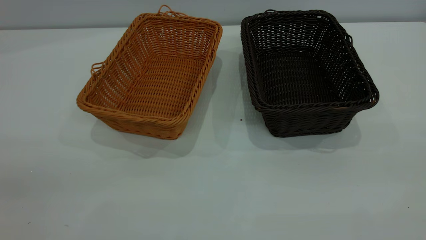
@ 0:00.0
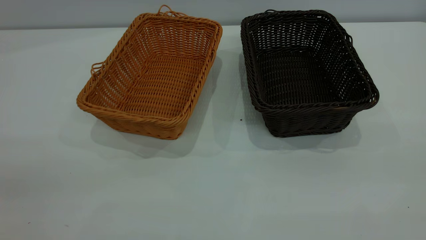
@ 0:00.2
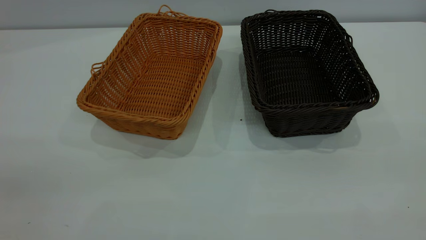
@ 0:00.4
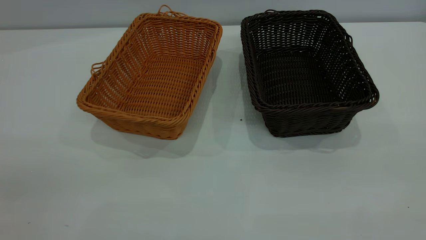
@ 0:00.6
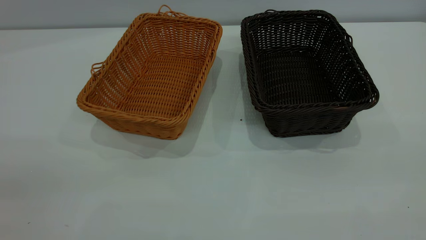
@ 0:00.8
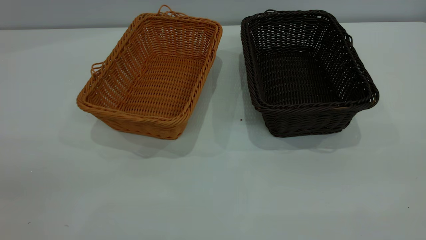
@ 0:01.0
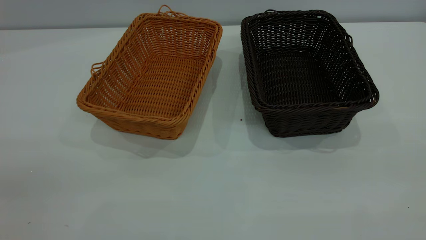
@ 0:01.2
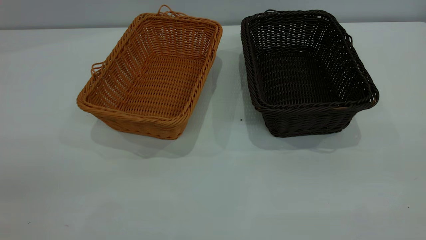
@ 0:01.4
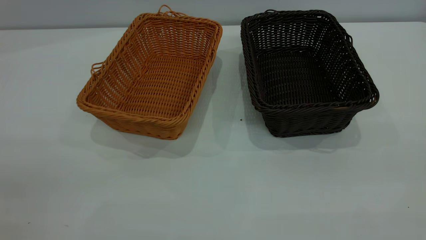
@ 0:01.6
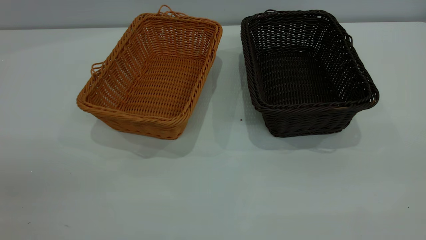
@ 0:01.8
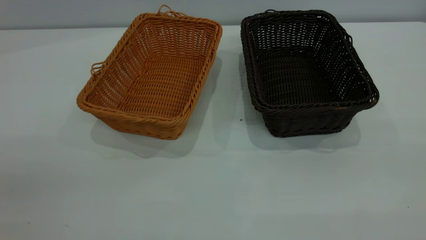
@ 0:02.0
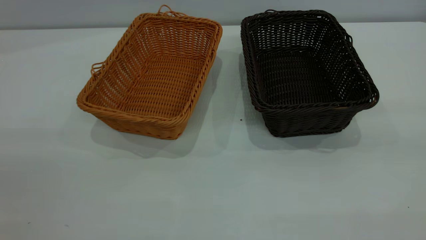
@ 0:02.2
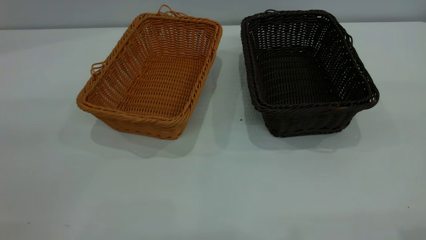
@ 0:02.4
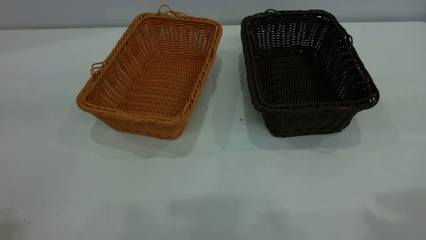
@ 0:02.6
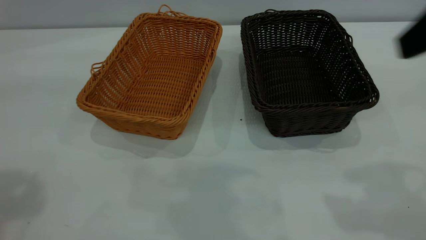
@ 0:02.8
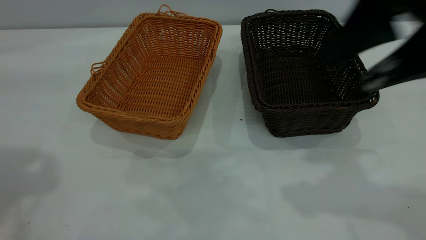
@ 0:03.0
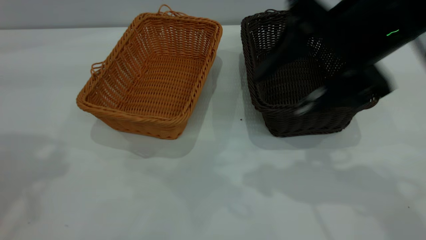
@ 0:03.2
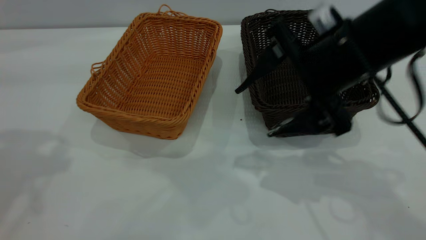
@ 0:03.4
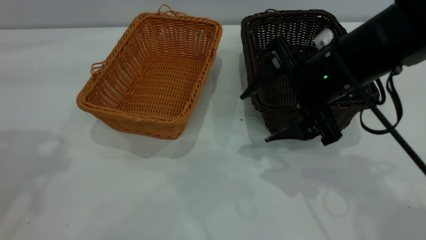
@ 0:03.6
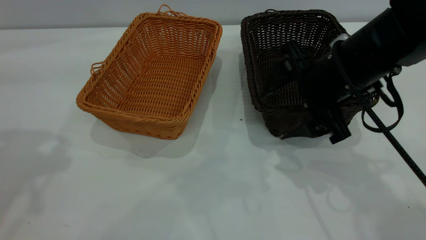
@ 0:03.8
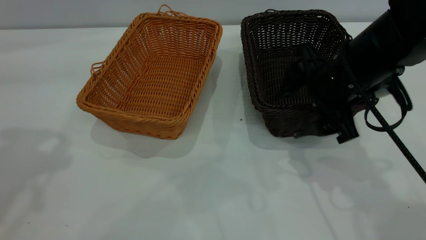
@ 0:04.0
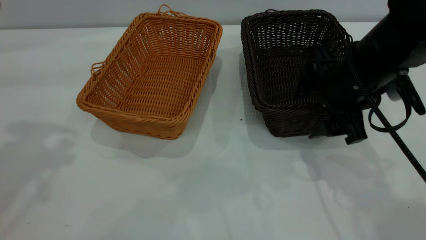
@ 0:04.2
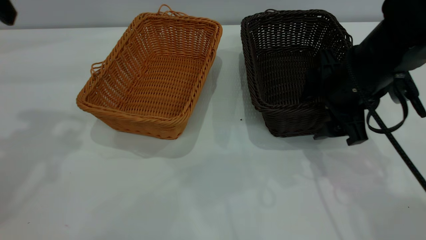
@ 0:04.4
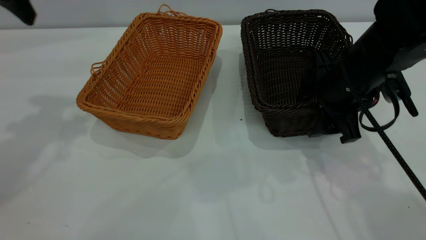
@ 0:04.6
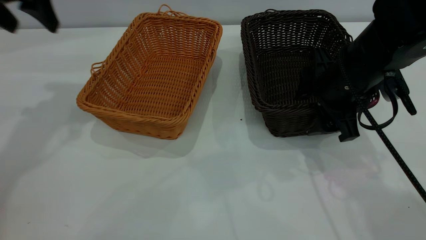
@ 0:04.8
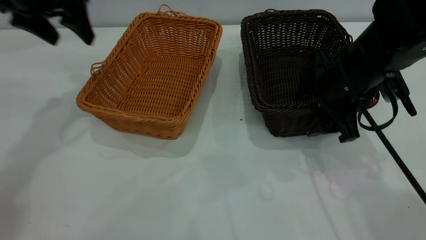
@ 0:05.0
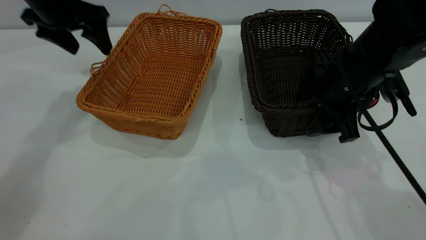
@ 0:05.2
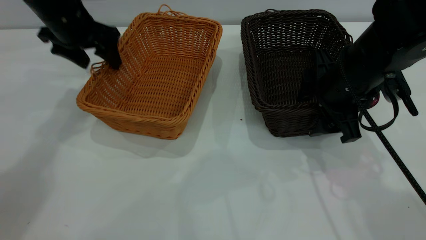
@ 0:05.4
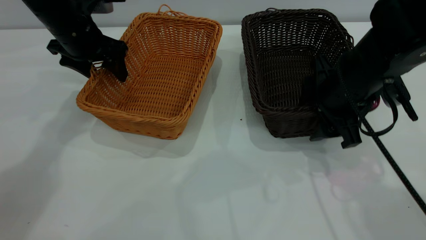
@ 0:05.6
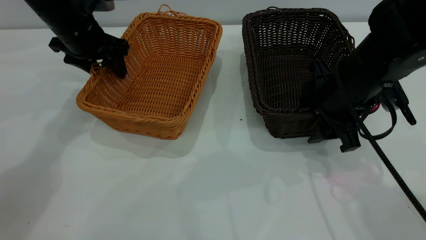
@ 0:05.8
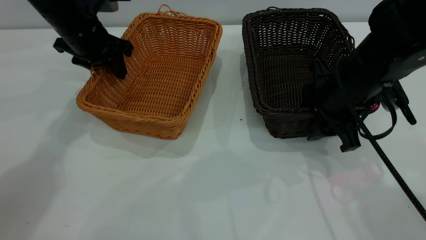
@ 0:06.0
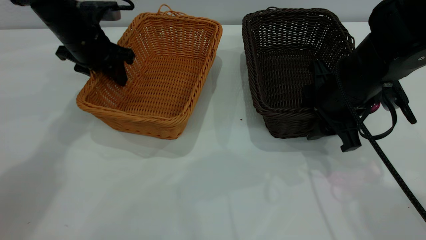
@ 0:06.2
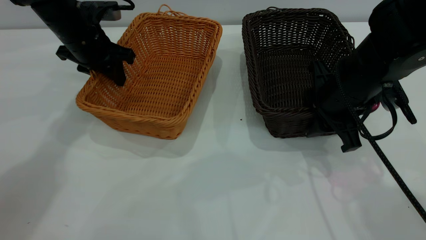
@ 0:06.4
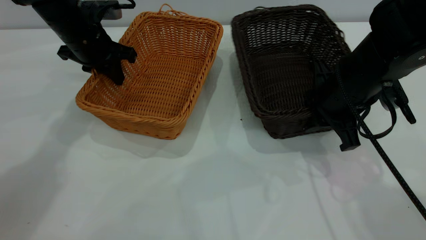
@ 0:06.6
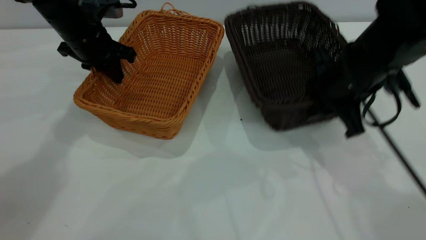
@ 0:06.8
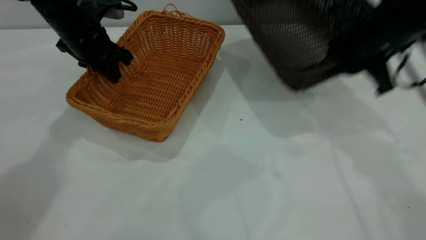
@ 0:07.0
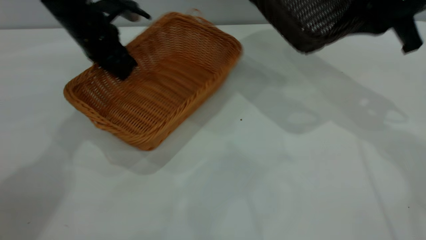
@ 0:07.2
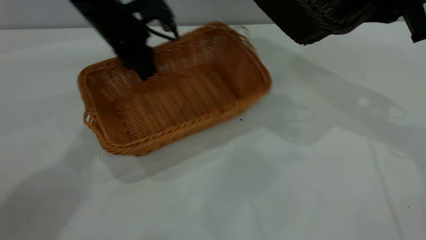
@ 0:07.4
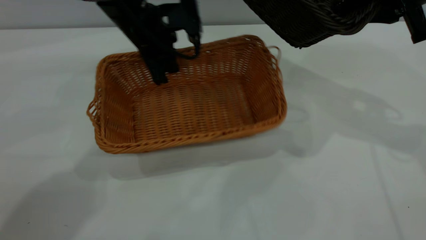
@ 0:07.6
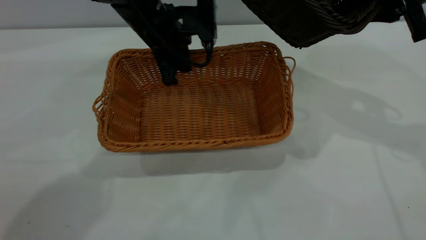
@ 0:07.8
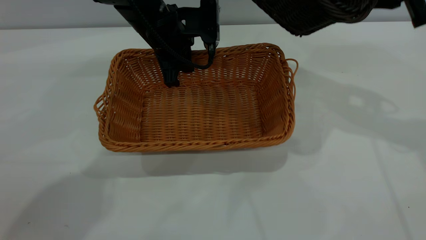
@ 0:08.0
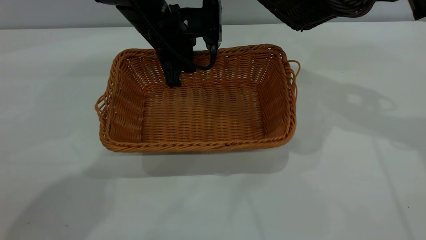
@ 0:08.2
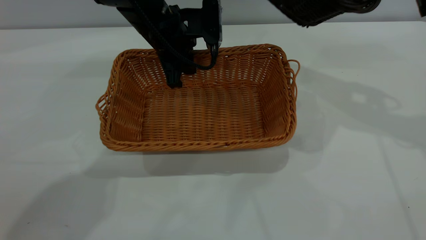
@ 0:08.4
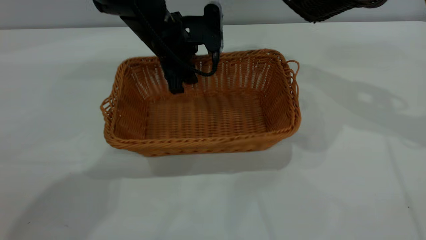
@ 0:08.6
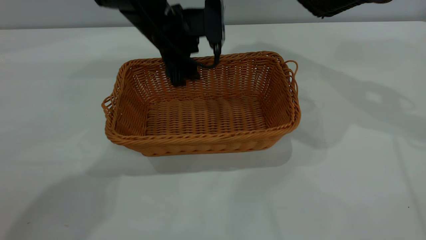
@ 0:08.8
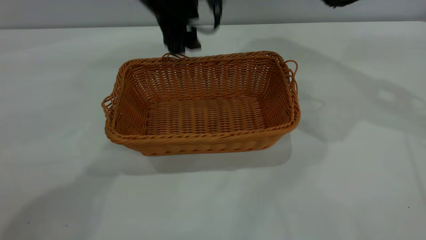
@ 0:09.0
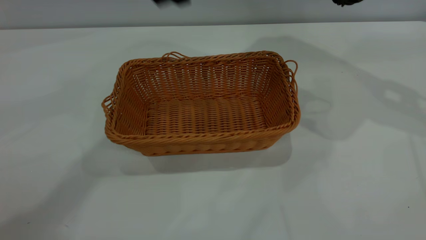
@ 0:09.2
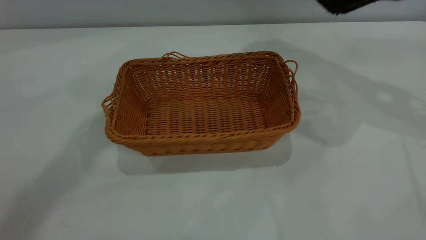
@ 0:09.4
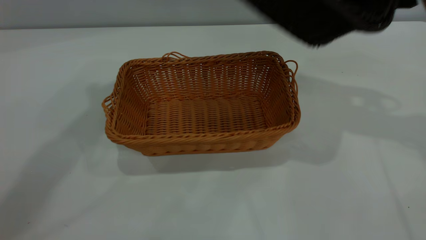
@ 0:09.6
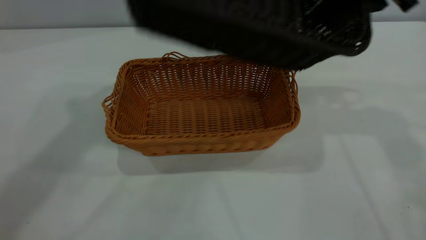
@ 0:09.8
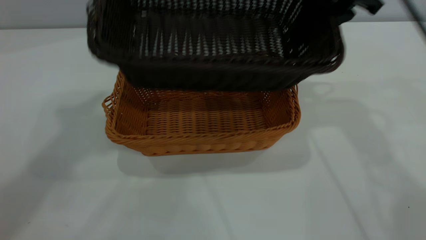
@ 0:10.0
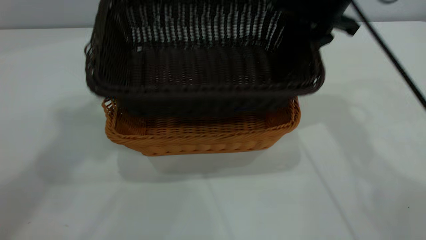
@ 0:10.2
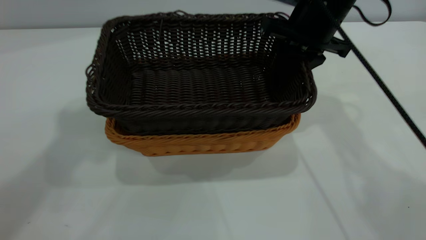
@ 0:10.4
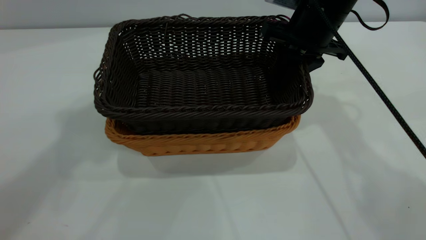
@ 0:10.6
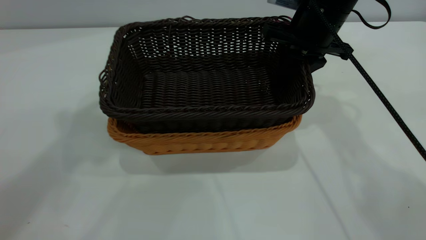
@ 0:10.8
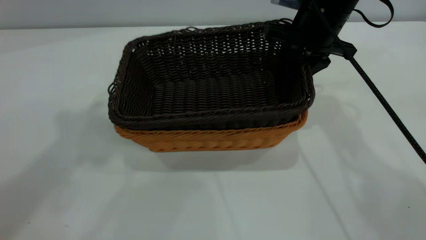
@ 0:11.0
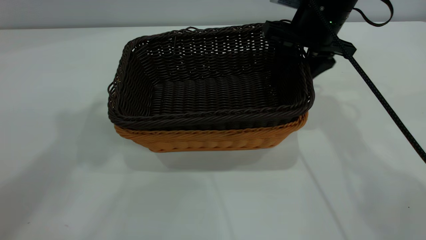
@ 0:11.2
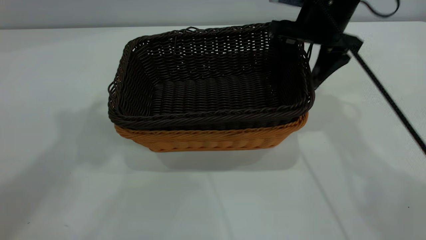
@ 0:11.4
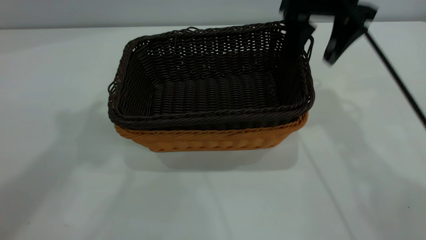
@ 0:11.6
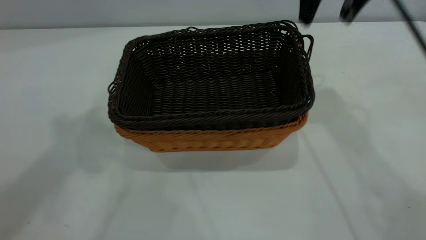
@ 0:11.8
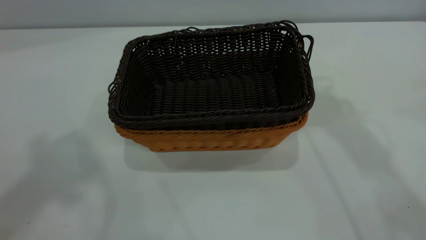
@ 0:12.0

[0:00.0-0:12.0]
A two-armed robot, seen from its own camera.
Task of the whole recording: the left gripper grasp the brown basket and place it in the center of the table, the right gripper grasp the black basket and place it inside the brown one.
Step, 0:00.0 to 0:07.0: Pick up the light basket with the right gripper.
Step, 0:07.2 to 0:08.8: Place the light-colored basket in the center.
Step, 0:09.0 to 0:11.8: Place the dark basket on top of the light basket.
0:00.0 to 0:01.6: The two grippers keep their place.
0:01.6 to 0:03.0: The right gripper shifts roughly 25 cm forward and to the left.
0:03.0 to 0:04.4: The left gripper heads forward and downward, covering approximately 10 cm. Meanwhile the right gripper is displaced downward and forward by about 15 cm.
0:04.4 to 0:06.0: The left gripper moves downward, forward and to the right, some 25 cm, and closes up; the right gripper closes its fingers.
0:06.0 to 0:07.6: The right gripper is displaced upward and to the right by approximately 15 cm, and closes its fingers. Meanwhile the left gripper moves to the right, some 10 cm, and closes its fingers.
0:07.6 to 0:09.0: The left gripper moves upward, roughly 5 cm, and opens its fingers. Meanwhile the right gripper goes about 5 cm to the right.
0:09.0 to 0:10.4: The right gripper is displaced to the left and downward by approximately 20 cm, while the left gripper is displaced upward, backward and to the left by roughly 35 cm.
0:10.4 to 0:12.0: The left gripper is displaced backward by some 5 cm. Meanwhile the right gripper heads upward, covering some 20 cm, and opens its fingers.

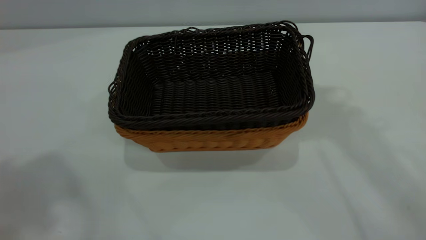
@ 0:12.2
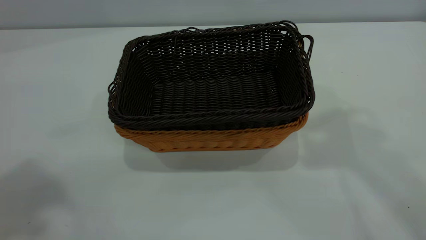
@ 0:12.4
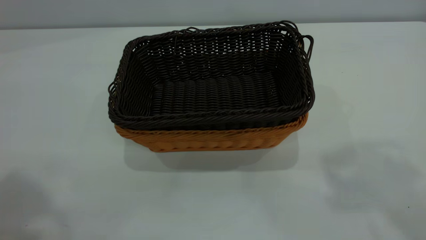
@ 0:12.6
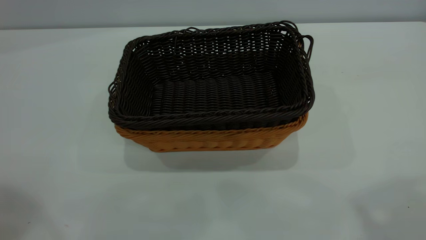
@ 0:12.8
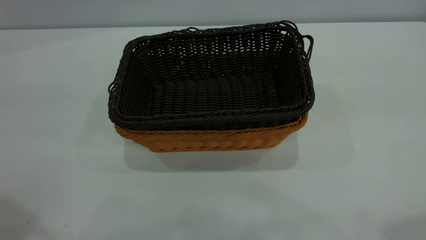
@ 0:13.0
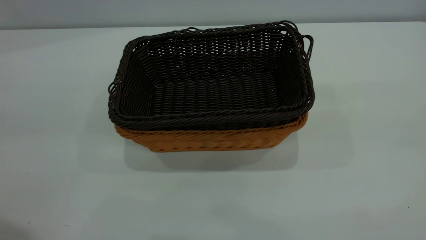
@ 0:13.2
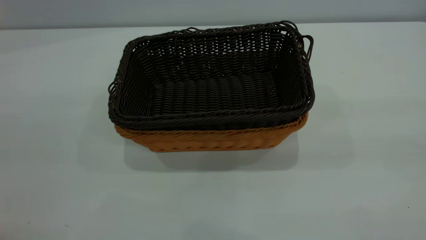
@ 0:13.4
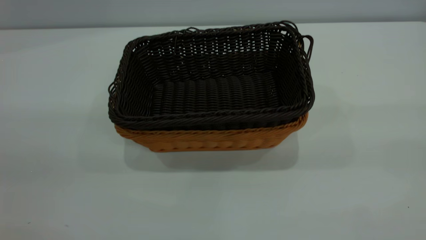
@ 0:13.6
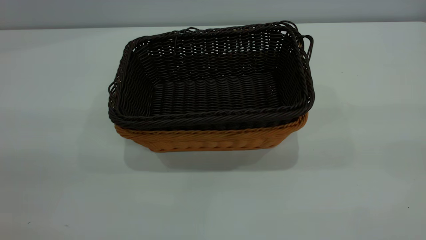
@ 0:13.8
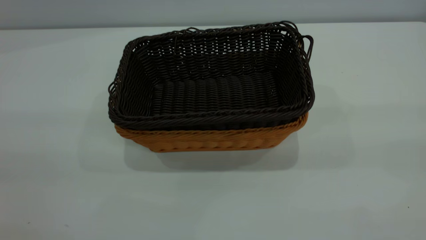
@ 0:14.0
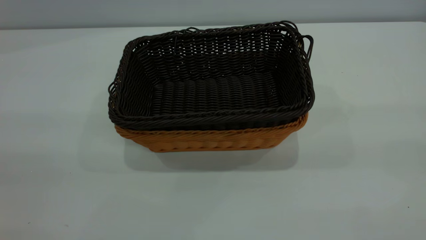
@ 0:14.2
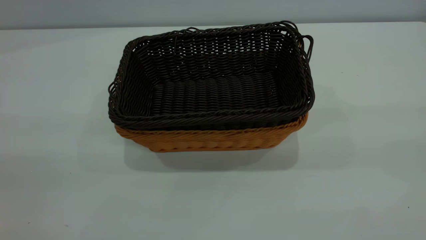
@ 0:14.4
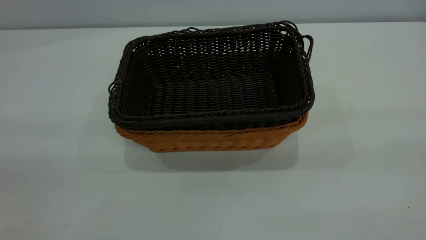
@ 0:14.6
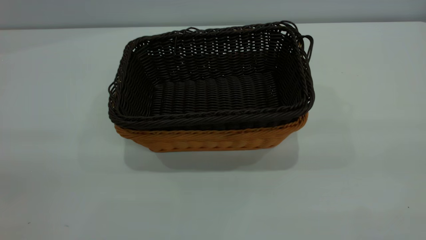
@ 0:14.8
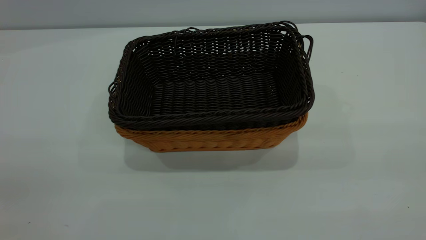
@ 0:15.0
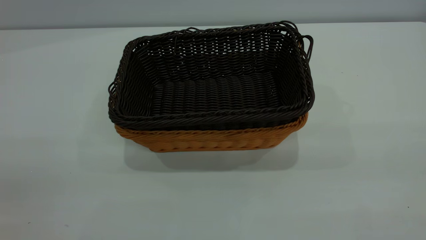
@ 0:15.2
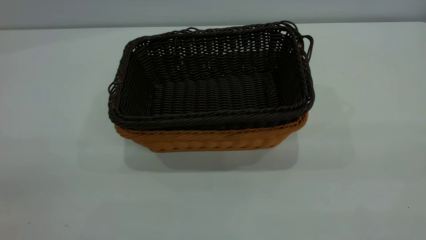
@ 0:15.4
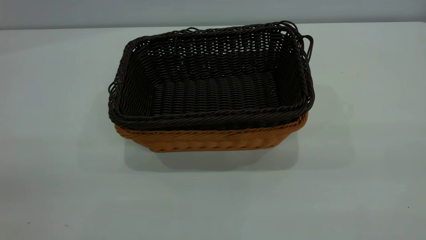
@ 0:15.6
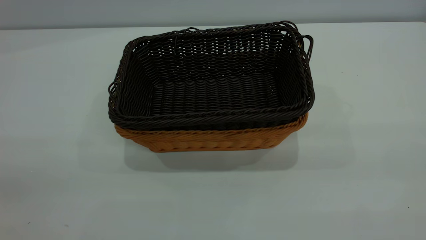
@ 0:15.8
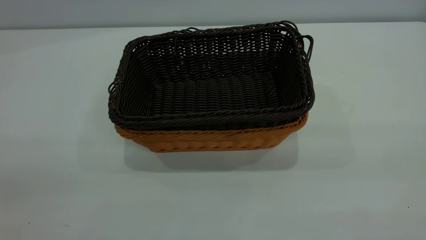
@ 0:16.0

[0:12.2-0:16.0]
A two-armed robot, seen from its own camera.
Task of the whole recording: the left gripper grasp the brown basket and place it in the center of the table, the right gripper grasp the black basket and place it inside the brown one.
0:14.8 to 0:16.0: Neither gripper changes place.
